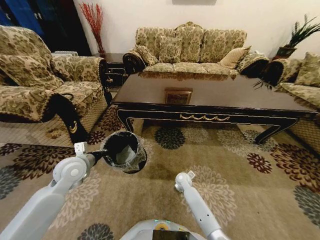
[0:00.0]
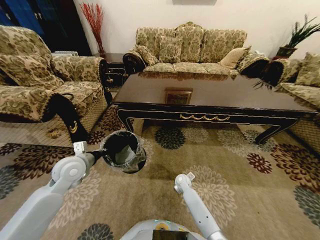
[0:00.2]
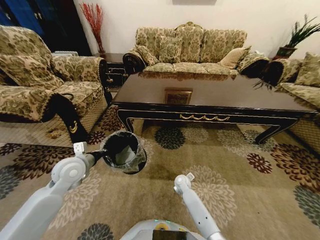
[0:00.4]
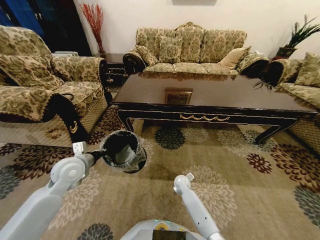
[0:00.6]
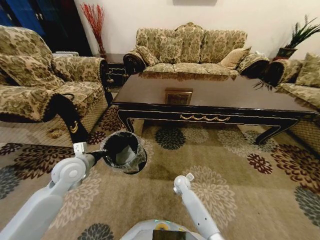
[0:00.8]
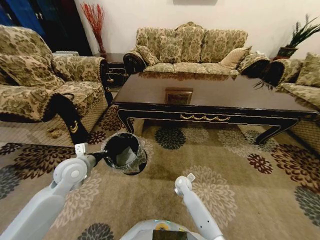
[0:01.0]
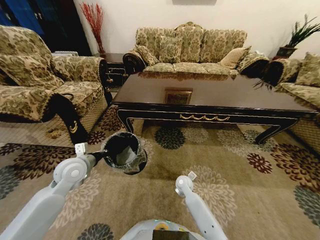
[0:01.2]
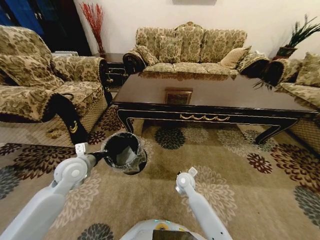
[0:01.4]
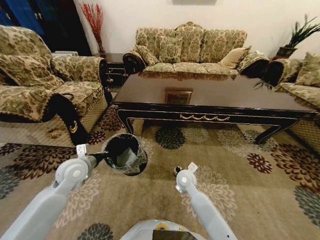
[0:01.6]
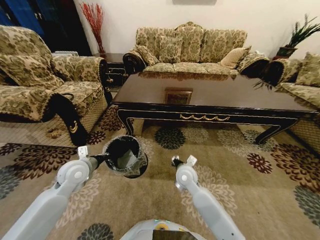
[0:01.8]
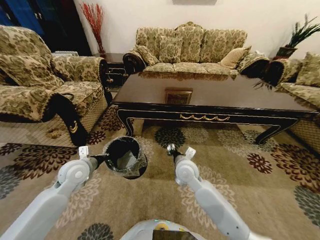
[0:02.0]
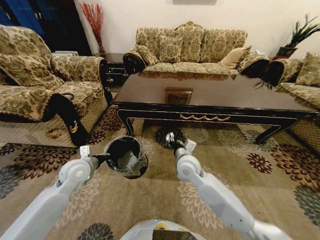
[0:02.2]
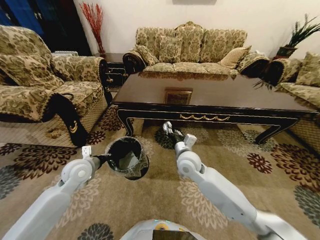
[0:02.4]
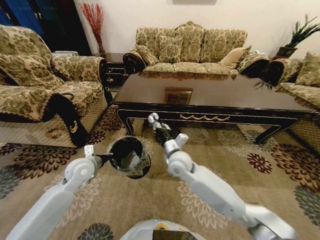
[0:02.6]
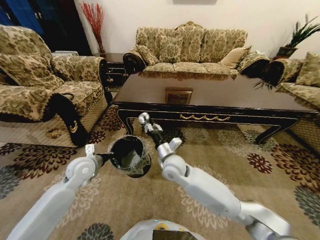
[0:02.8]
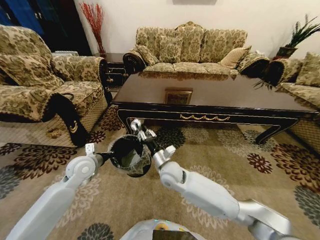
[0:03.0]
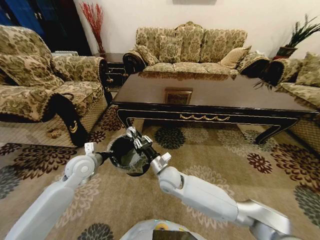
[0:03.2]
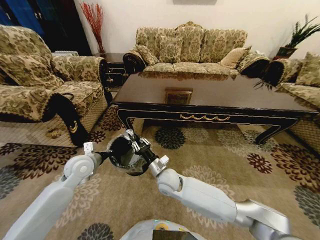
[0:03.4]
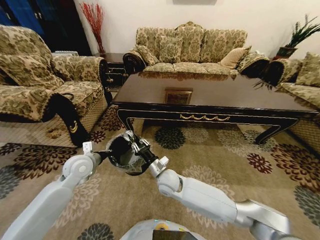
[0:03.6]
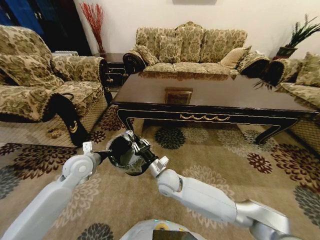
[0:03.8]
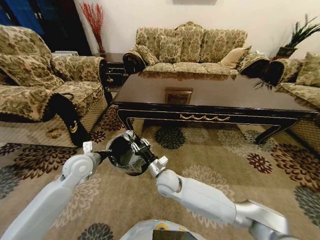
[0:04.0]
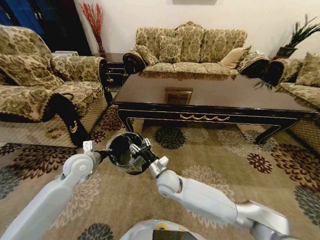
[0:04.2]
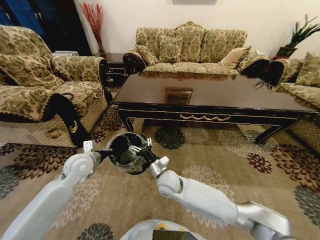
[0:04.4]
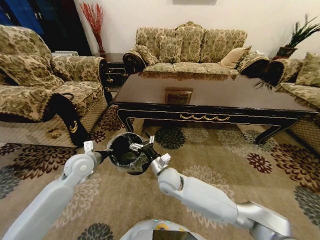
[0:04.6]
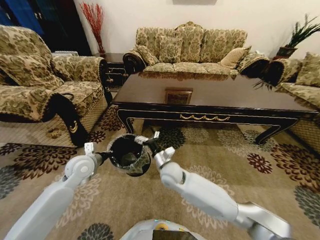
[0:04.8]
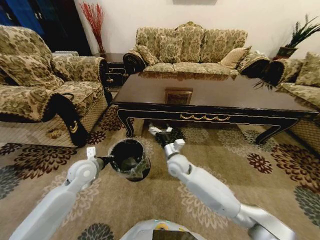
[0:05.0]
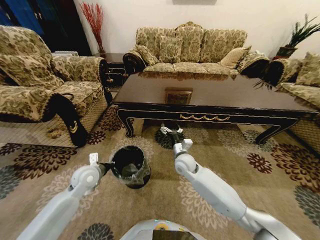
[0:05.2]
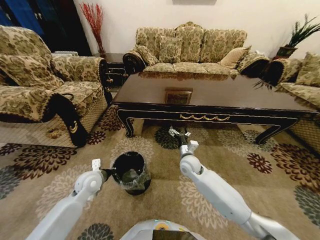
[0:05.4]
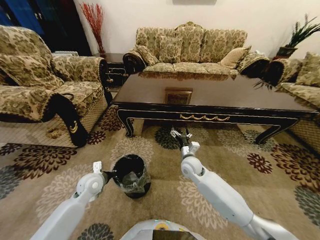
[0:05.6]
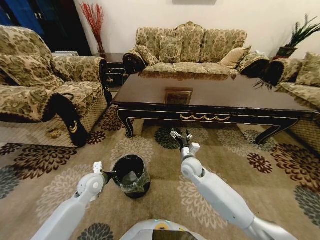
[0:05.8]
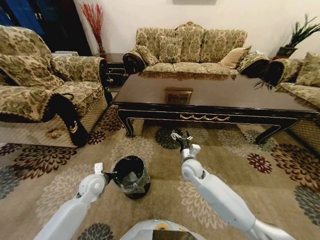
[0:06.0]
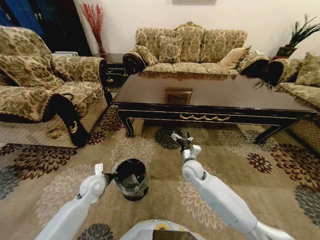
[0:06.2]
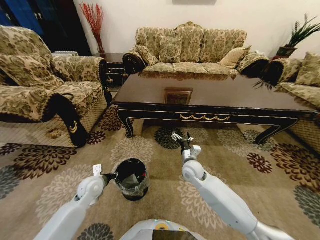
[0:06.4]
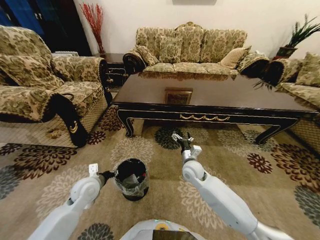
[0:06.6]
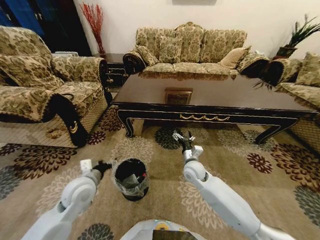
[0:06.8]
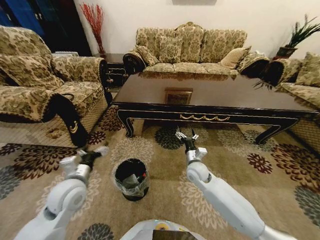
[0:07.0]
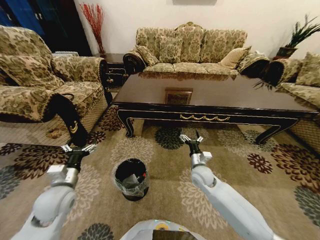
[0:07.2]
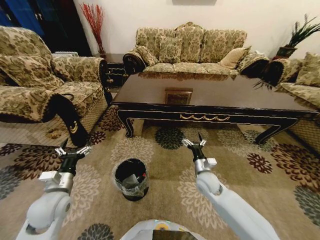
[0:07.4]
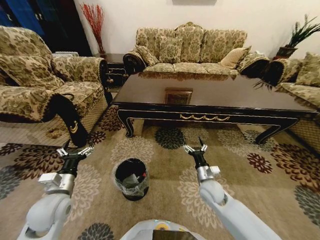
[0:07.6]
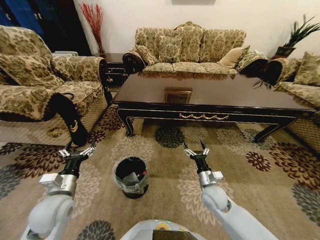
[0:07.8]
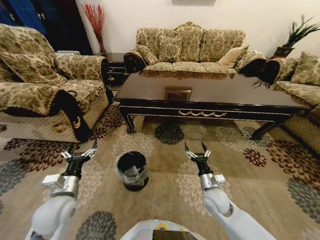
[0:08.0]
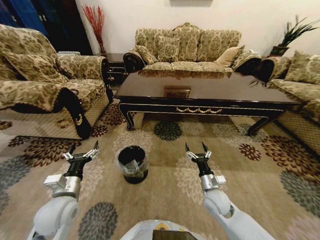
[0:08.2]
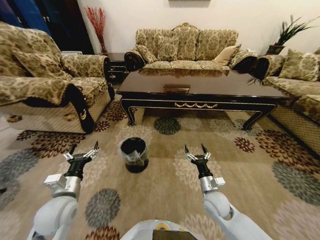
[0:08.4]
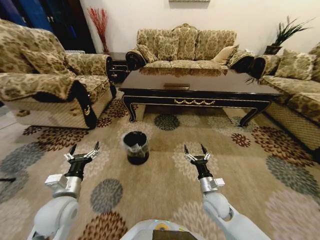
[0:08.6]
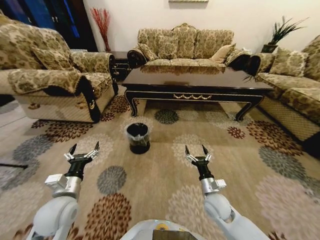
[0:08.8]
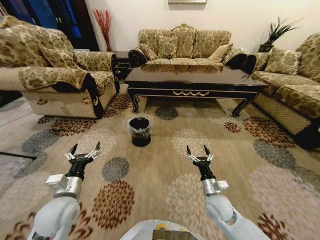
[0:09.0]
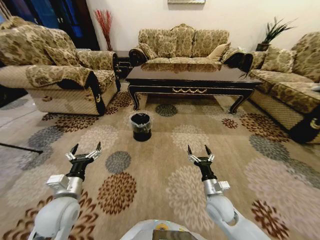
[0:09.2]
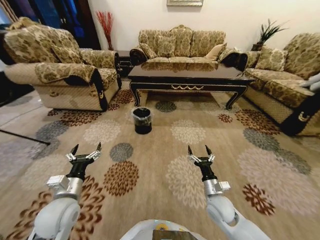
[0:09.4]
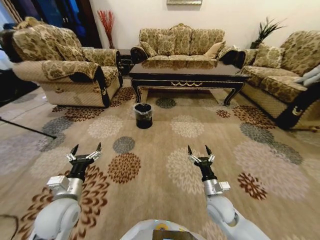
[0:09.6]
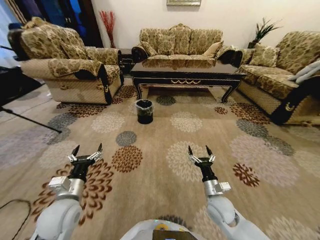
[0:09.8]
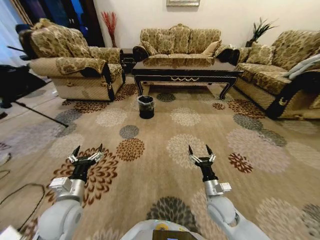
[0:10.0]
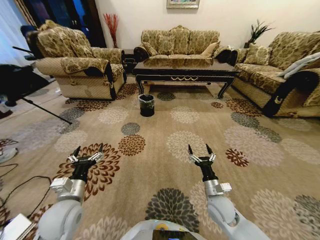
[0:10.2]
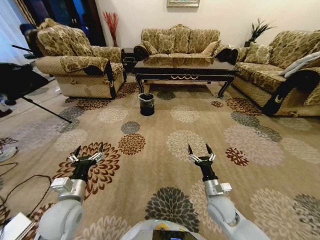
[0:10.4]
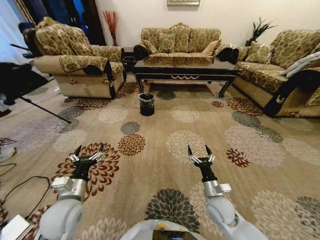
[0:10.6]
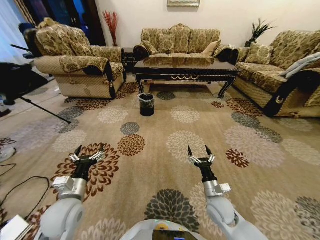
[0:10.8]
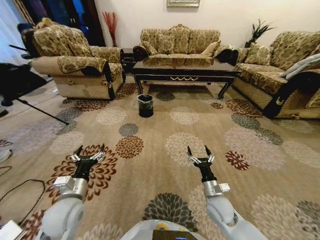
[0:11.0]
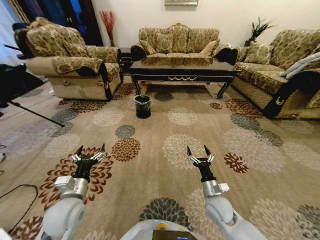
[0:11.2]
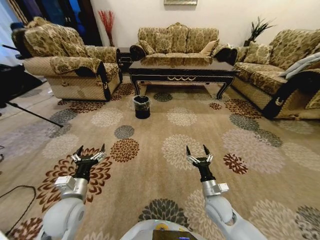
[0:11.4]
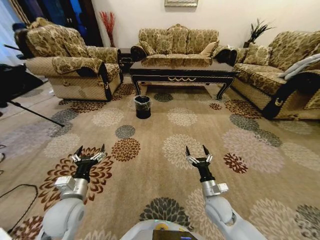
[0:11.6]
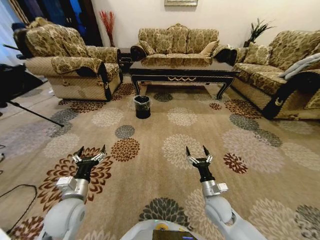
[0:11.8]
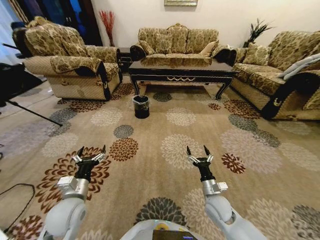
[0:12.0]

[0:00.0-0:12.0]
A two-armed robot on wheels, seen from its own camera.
Task of the whole recording: Move to the front of the table and pick up the trash from the floor, then place it into the trash bin.
0:00.0 to 0:01.6: The right gripper shifts some 15 cm upward, and closes up.
0:01.6 to 0:03.0: The right gripper heads to the left and upward, covering roughly 10 cm.
0:03.0 to 0:04.4: The right gripper opens up.
0:04.4 to 0:06.0: The right gripper travels to the right and forward by some 15 cm; the left gripper heads downward, covering approximately 10 cm.
0:06.0 to 0:07.6: The left gripper goes about 15 cm backward and upward, and opens up. Meanwhile the right gripper goes about 10 cm backward and to the right.
0:07.6 to 0:09.0: The right gripper goes approximately 5 cm backward.

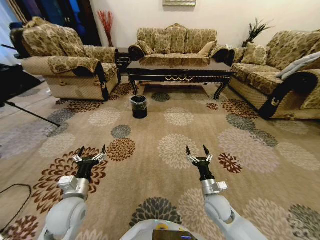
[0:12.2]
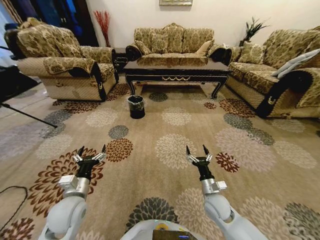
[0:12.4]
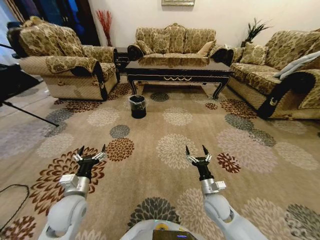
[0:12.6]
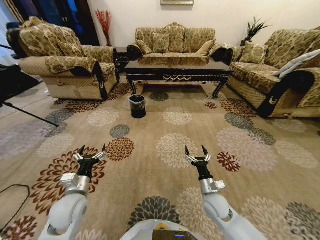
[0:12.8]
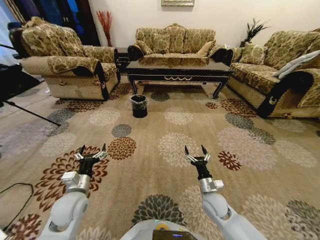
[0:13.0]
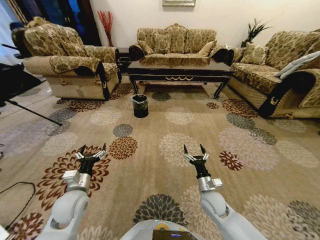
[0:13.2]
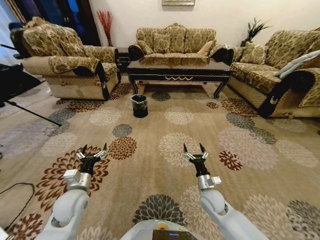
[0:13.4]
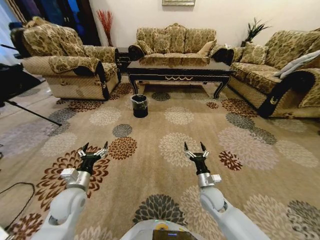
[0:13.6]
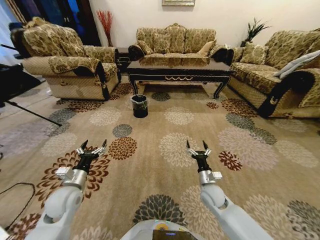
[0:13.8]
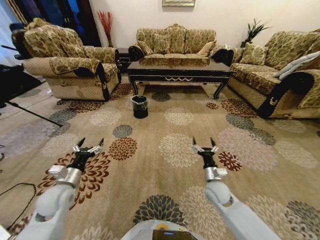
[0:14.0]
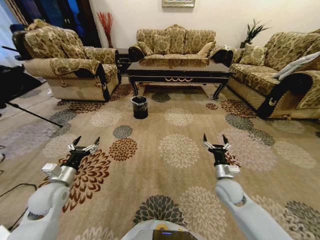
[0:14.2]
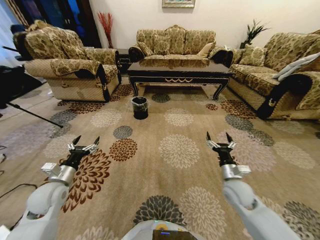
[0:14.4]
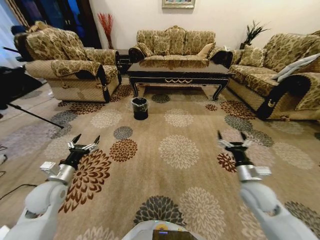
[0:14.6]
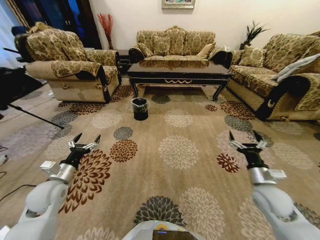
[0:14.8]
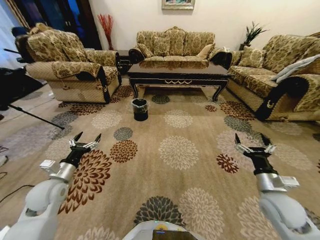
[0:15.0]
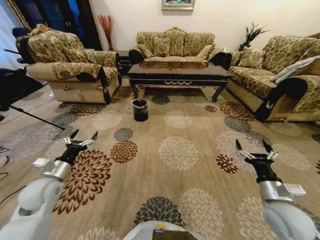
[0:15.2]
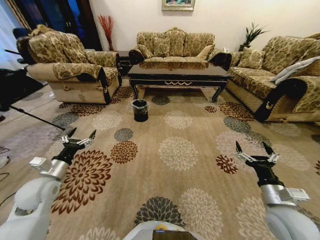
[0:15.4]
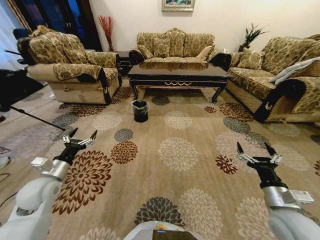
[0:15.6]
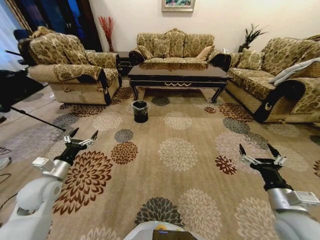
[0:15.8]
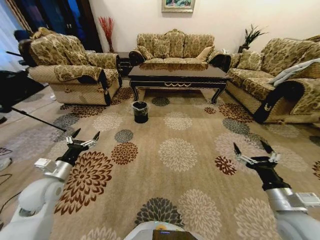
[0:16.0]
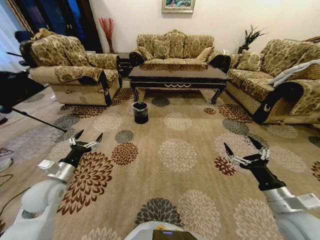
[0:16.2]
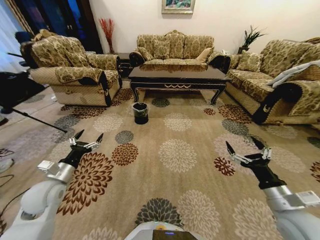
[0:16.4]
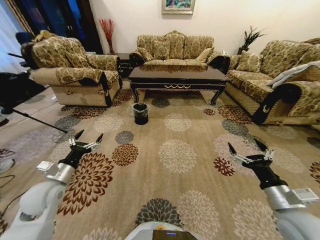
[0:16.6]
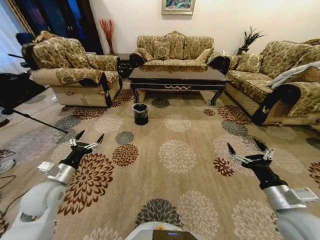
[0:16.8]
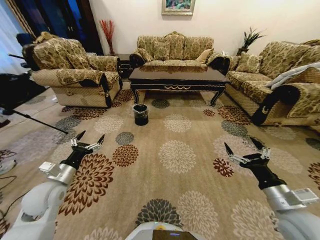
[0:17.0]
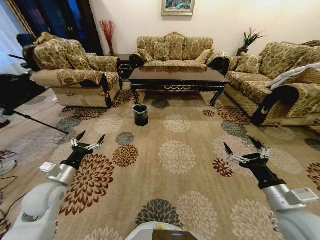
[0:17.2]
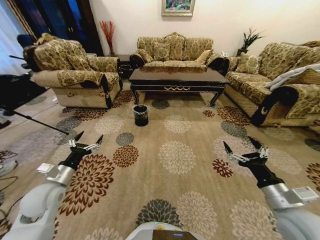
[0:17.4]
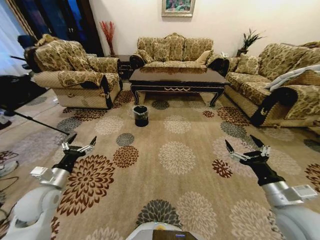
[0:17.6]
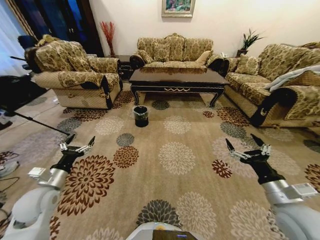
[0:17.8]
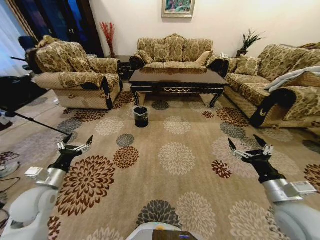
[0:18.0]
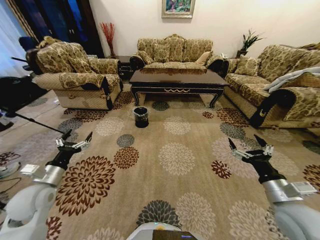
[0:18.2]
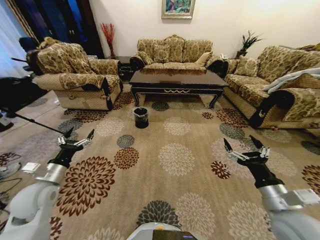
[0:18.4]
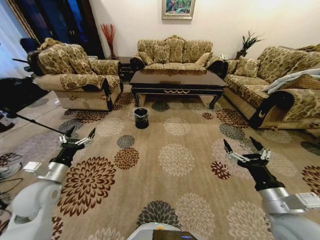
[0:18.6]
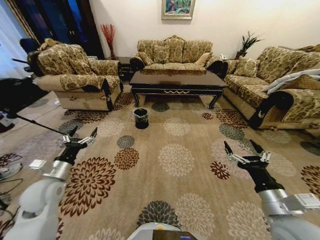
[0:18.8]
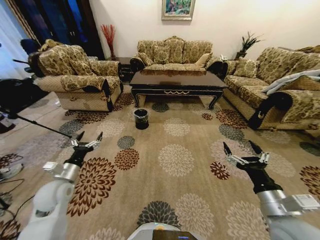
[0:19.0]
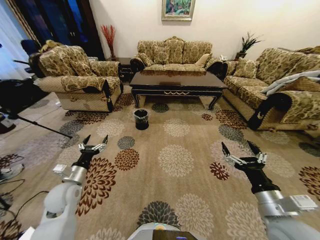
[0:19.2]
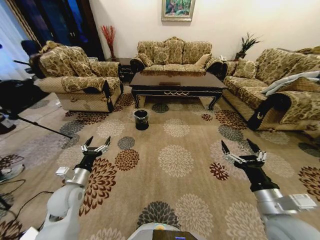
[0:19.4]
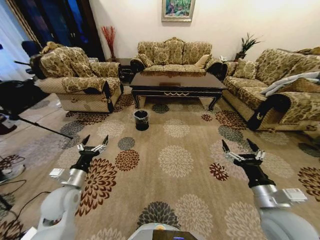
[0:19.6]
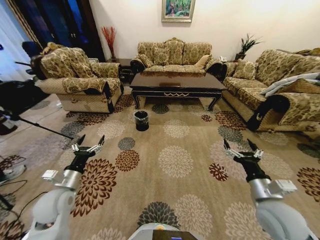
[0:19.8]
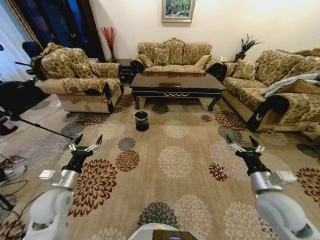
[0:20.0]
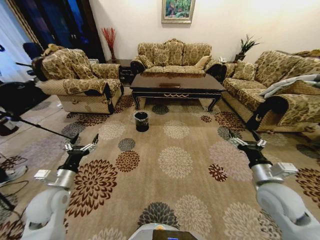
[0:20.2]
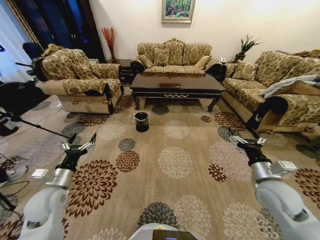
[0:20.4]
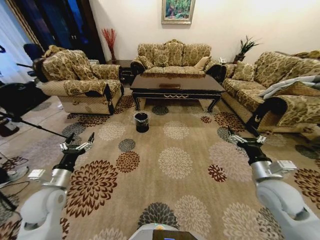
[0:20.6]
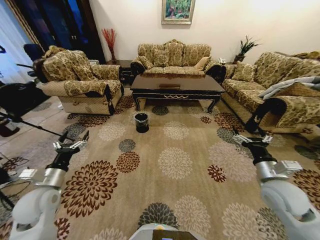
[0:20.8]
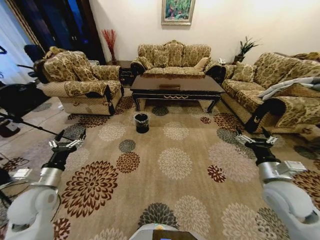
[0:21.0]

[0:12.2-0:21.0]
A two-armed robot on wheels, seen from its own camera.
Task of the whole recording: Move to the front of the table and pick up the trash from the floor, then place it into the trash bin.
0:12.2 to 0:13.6: The grippers stay close to where they were, moving slightly.
0:13.6 to 0:15.2: The right gripper moves to the right, upward and backward, some 20 cm; the left gripper travels to the left by about 10 cm.
0:15.2 to 0:16.6: The right gripper changes place by roughly 5 cm.
0:18.0 to 0:19.6: The left gripper is displaced to the right by approximately 5 cm.
0:19.6 to 0:21.0: The right gripper heads forward and to the right, covering approximately 10 cm, while the left gripper heads to the left, covering some 5 cm.

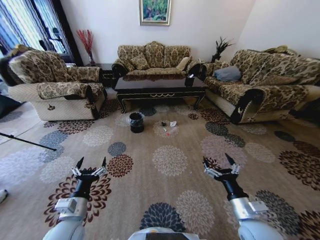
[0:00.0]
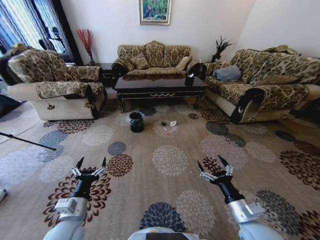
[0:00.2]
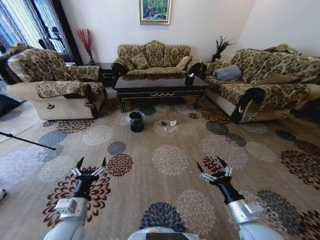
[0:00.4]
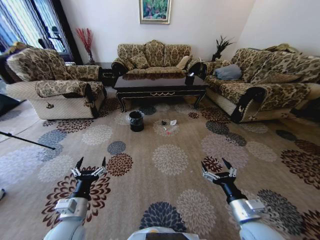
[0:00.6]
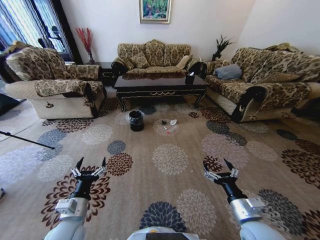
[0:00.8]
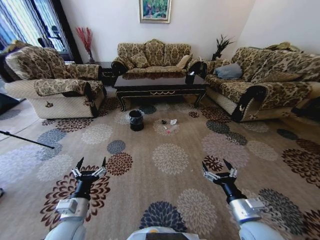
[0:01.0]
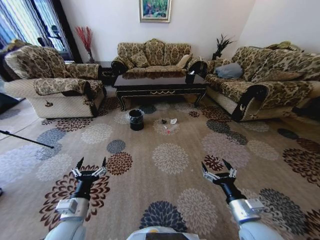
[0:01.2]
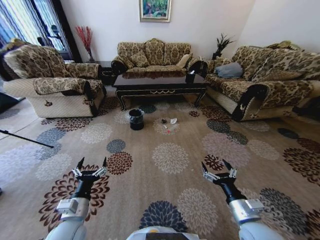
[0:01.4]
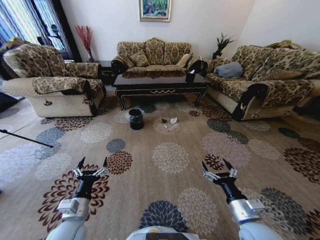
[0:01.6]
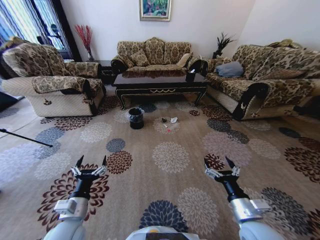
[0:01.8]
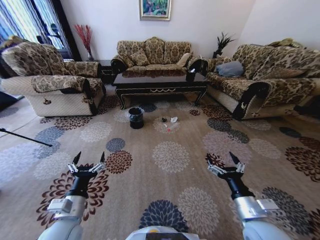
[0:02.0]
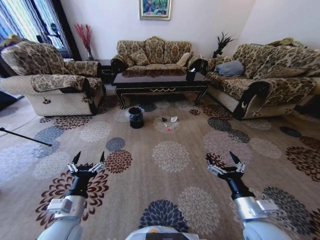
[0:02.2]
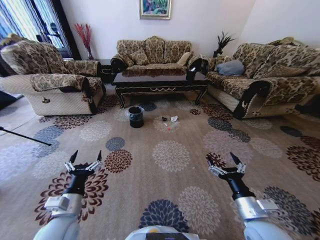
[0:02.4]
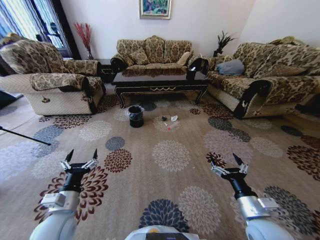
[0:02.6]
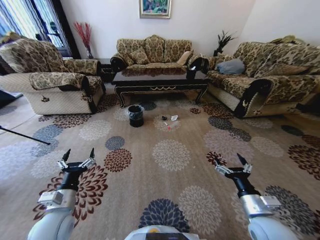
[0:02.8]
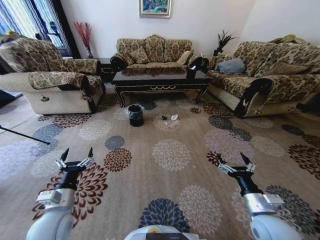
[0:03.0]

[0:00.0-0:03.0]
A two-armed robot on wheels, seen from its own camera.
Task of the whole recording: Move to the front of the table and pick up the trash from the floor, then place it into the trash bin.
0:01.6 to 0:03.0: The right gripper ends up some 5 cm from where it was; the left gripper ends up about 5 cm from where it was.
